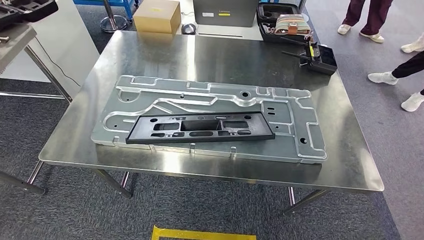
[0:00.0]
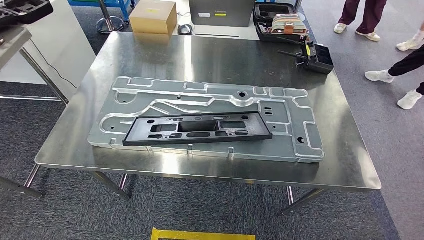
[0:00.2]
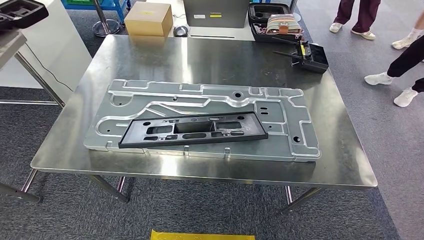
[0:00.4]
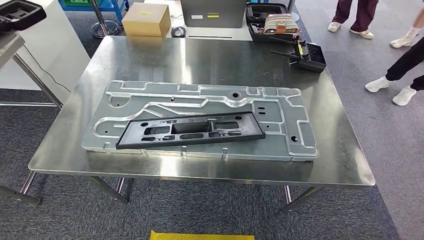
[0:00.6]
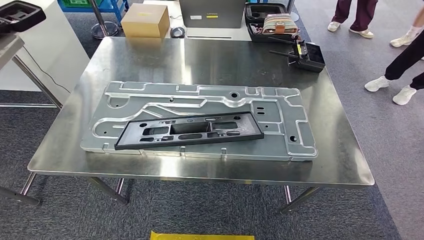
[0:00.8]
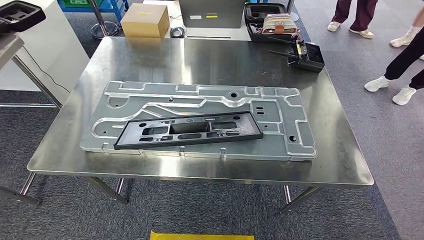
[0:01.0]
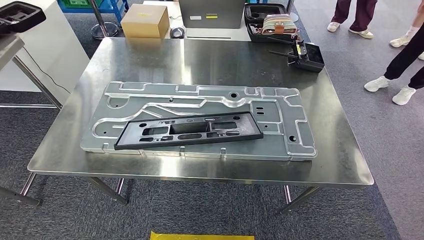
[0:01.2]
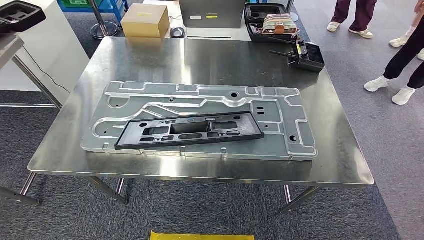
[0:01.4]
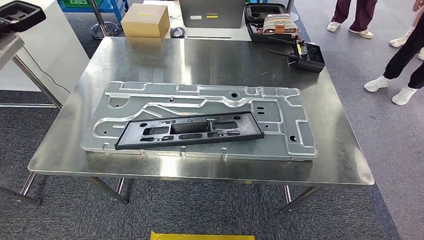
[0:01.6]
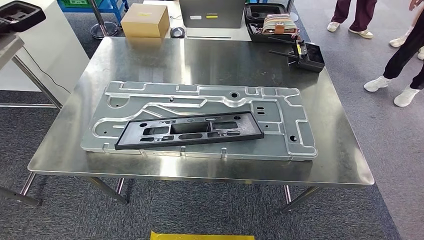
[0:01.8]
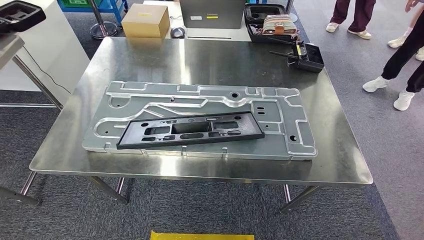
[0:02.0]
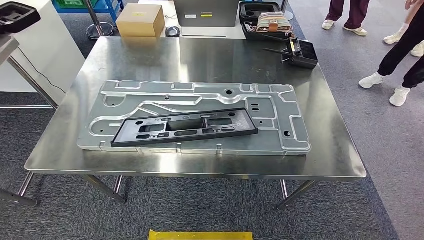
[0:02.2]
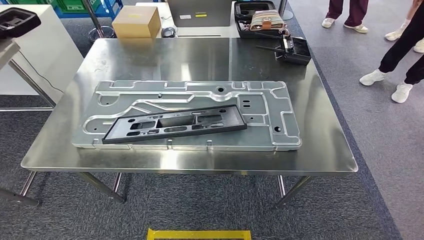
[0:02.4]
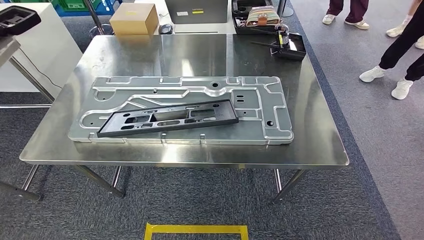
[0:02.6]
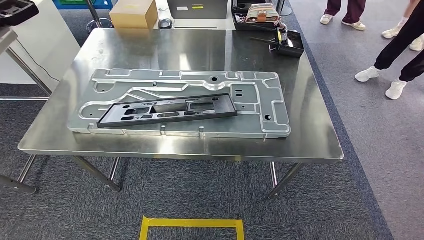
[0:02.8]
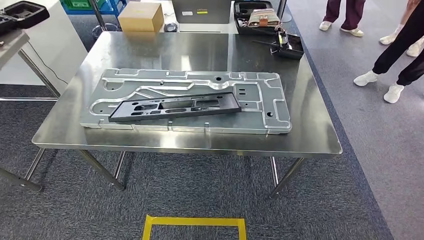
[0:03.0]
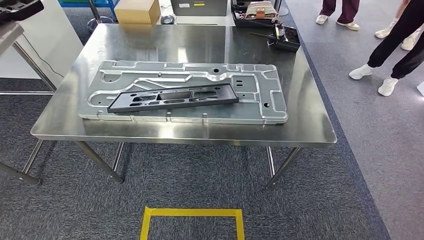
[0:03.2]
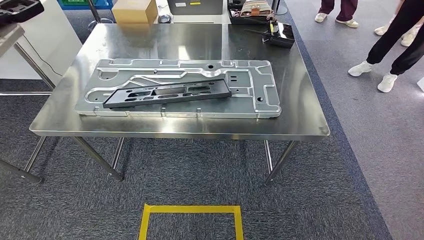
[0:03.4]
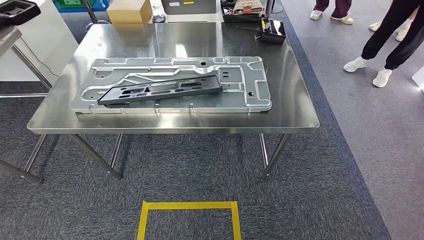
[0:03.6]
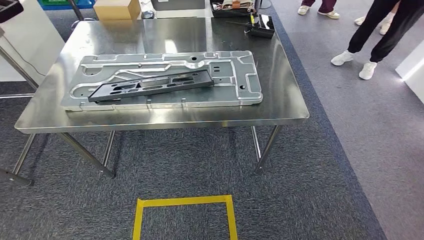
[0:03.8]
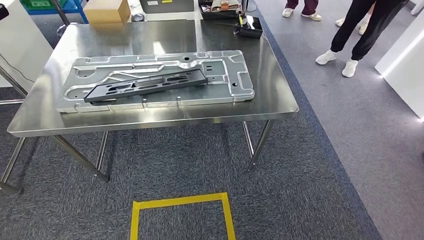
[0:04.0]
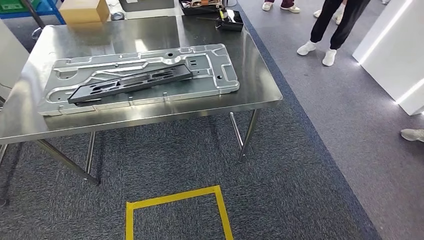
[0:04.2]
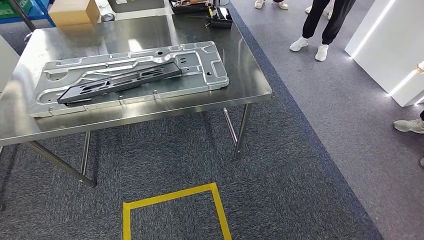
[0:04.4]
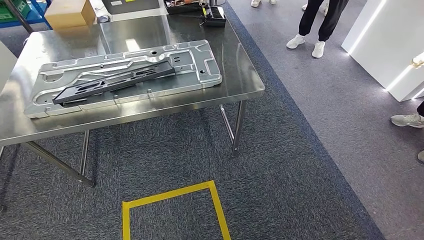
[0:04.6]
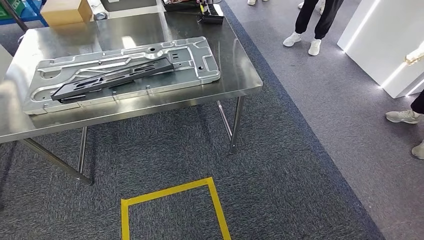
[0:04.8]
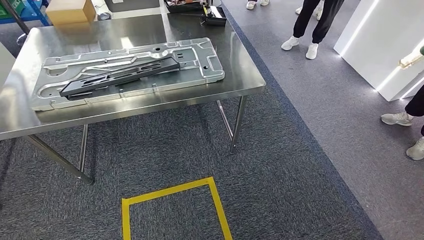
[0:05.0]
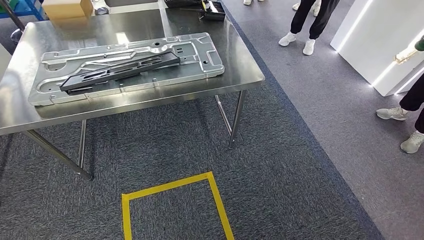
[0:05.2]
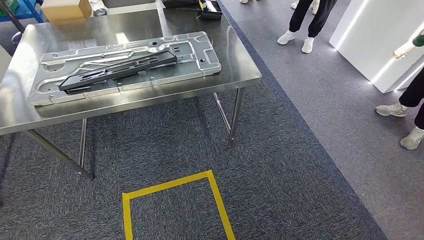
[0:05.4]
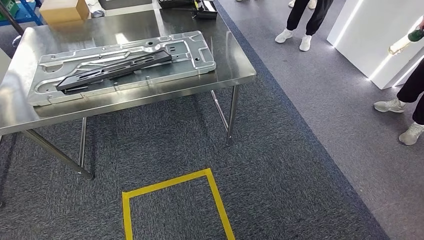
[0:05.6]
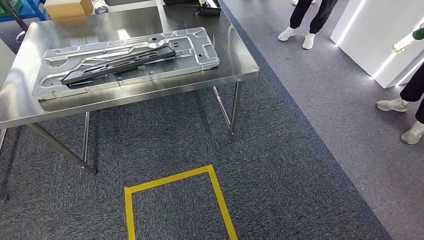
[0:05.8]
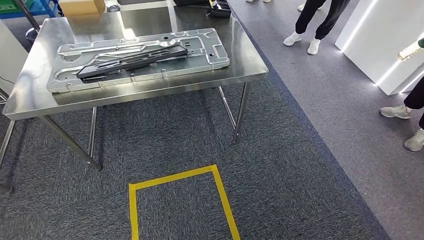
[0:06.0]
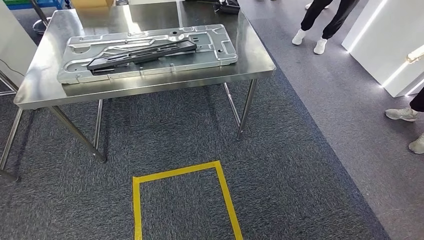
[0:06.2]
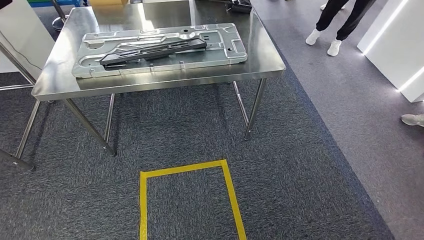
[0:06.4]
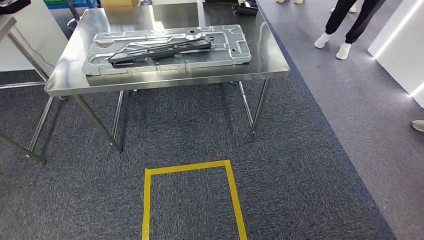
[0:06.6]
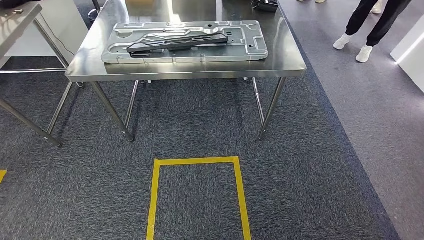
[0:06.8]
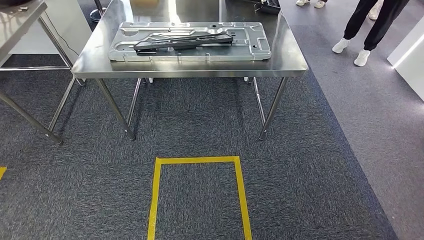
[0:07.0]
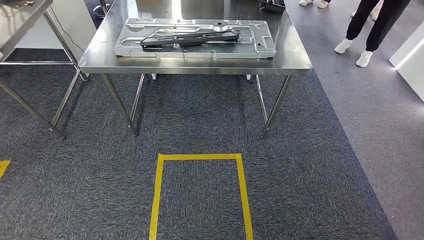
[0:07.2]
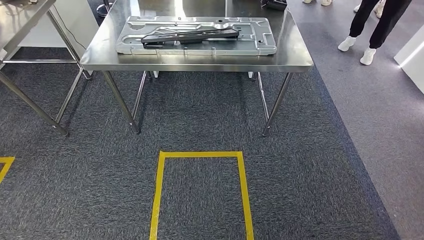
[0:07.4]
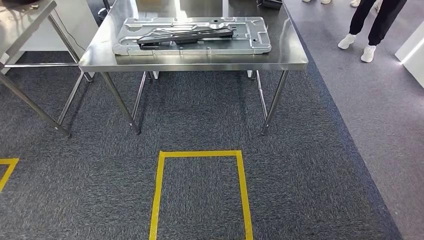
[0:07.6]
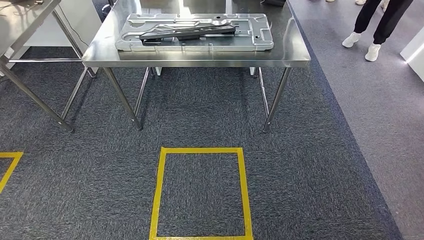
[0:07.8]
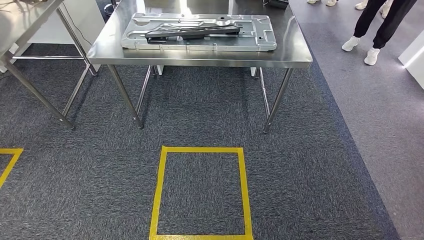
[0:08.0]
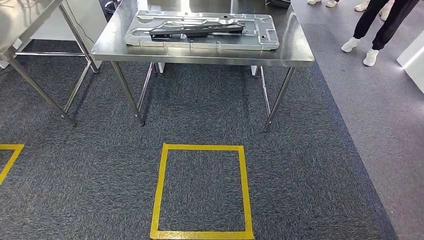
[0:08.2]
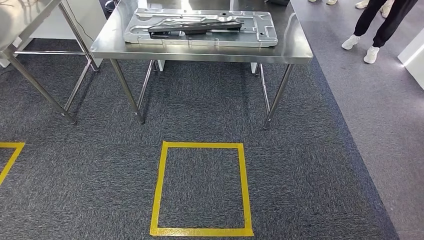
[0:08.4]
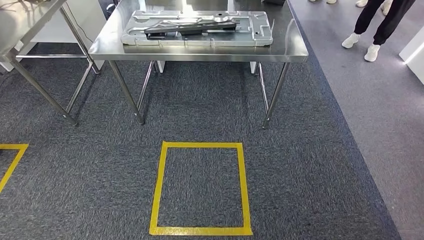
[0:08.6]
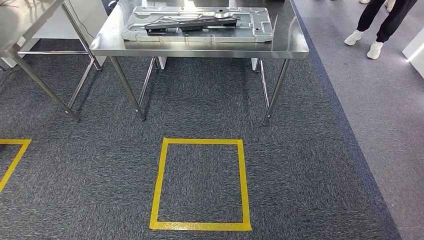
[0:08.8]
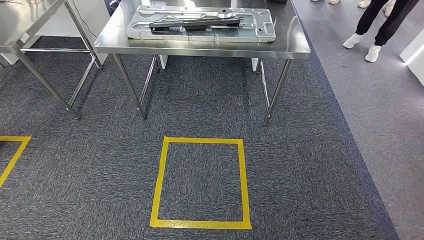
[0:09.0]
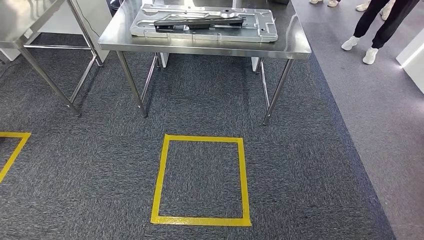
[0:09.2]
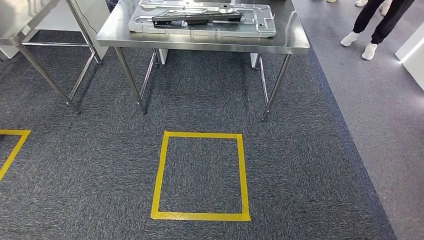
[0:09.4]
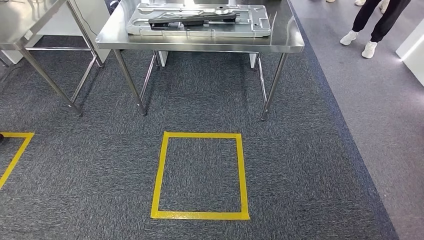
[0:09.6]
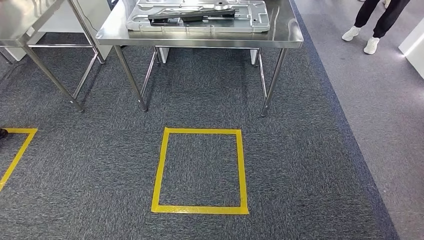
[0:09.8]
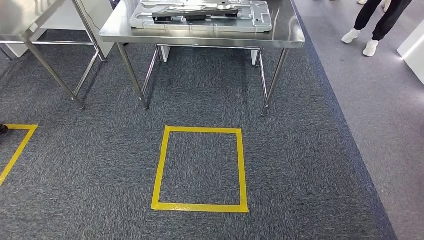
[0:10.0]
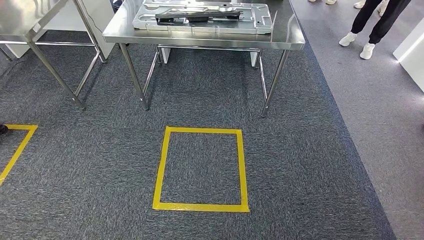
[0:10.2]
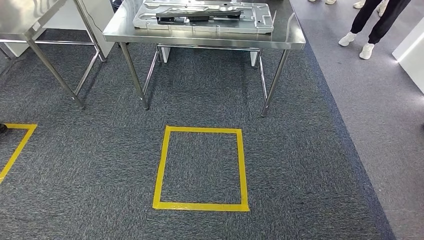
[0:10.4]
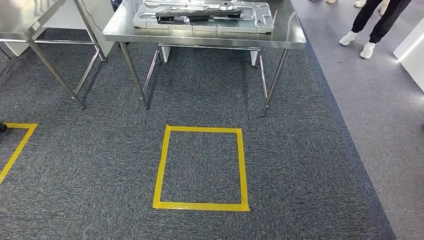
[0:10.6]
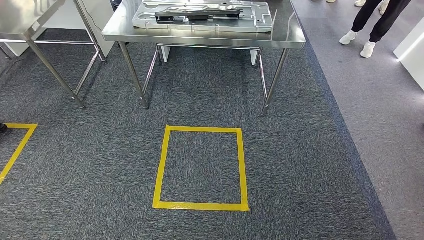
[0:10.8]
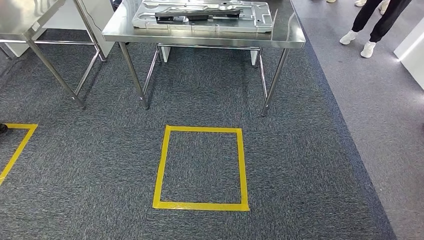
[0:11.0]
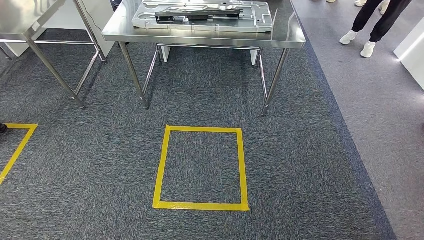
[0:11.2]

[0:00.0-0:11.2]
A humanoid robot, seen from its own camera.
Step, 0:07.4 to 0:11.2: Return to the initial position at the shelf.
0:09.6 to 0:11.2: The hands make only small movements.
